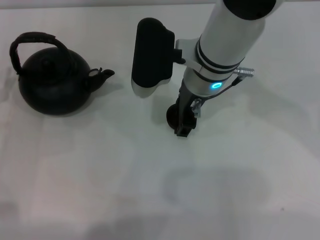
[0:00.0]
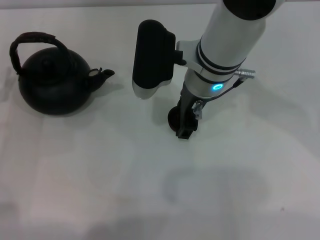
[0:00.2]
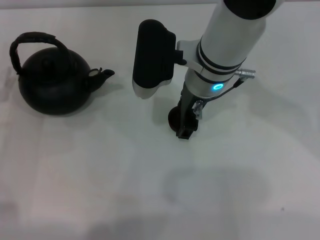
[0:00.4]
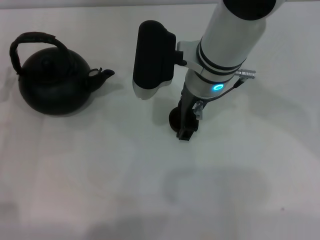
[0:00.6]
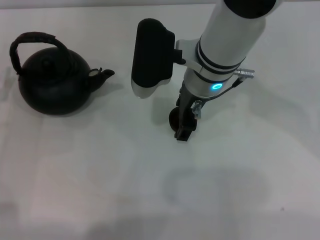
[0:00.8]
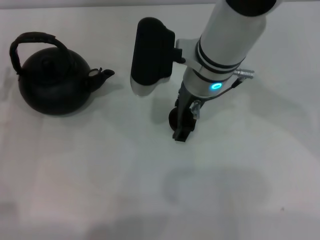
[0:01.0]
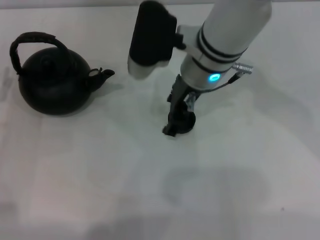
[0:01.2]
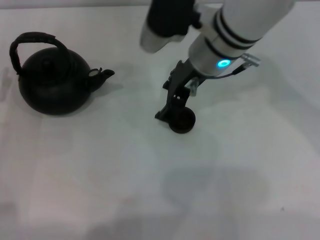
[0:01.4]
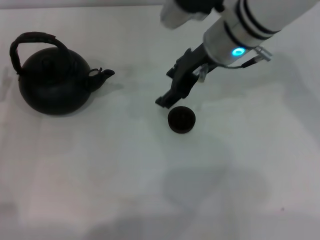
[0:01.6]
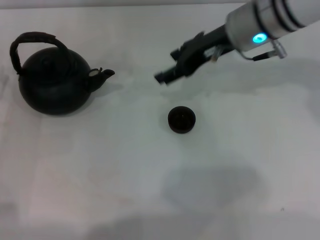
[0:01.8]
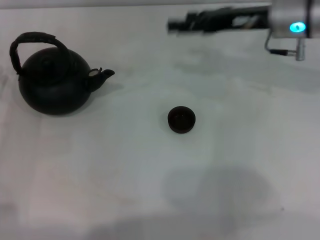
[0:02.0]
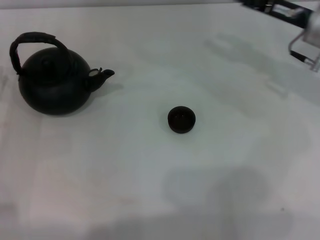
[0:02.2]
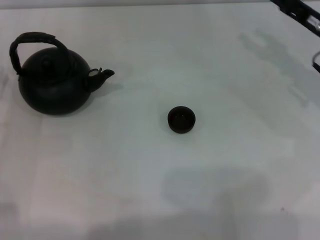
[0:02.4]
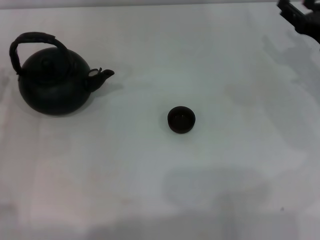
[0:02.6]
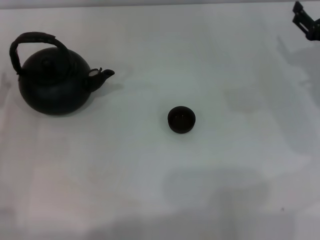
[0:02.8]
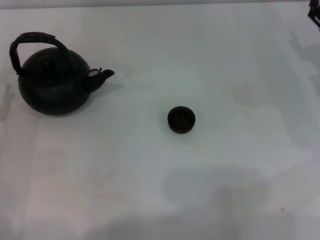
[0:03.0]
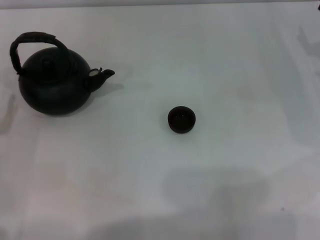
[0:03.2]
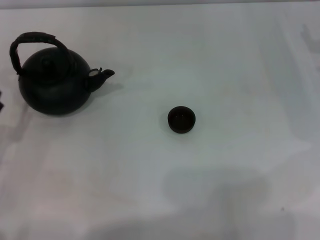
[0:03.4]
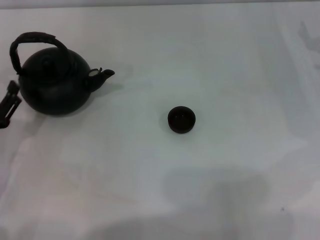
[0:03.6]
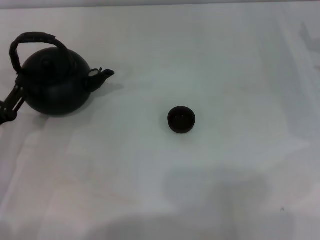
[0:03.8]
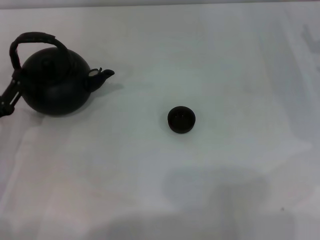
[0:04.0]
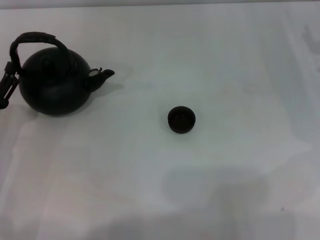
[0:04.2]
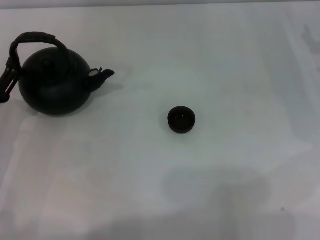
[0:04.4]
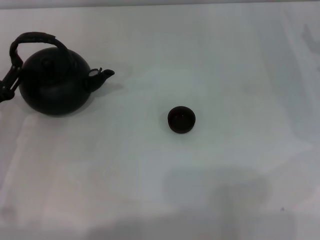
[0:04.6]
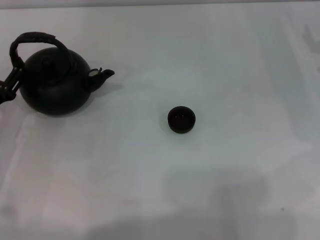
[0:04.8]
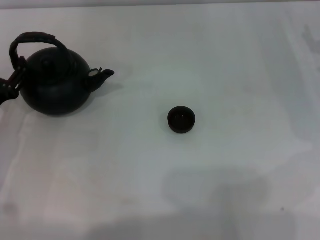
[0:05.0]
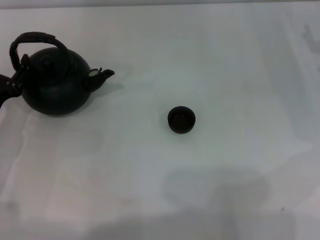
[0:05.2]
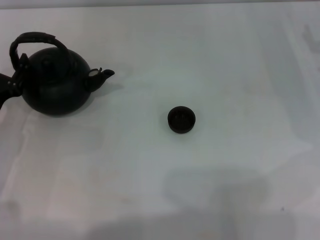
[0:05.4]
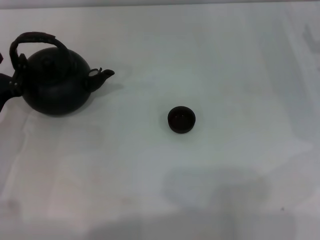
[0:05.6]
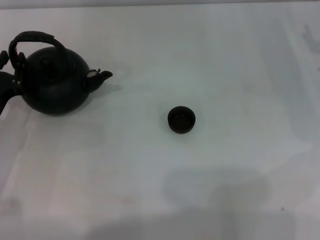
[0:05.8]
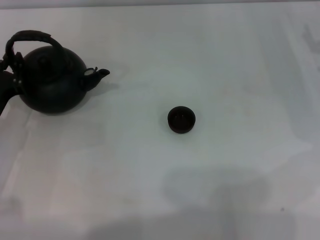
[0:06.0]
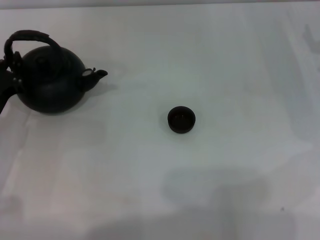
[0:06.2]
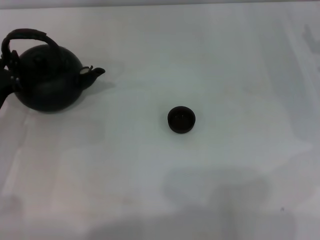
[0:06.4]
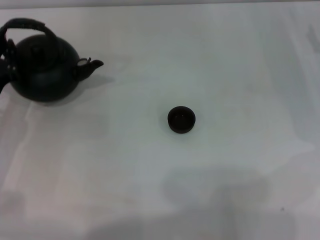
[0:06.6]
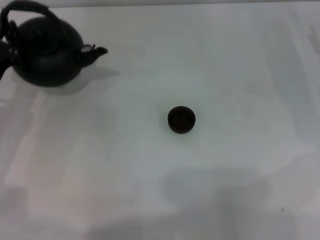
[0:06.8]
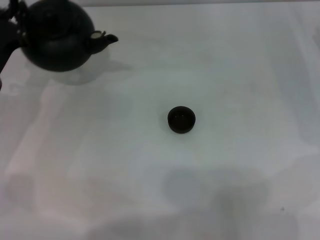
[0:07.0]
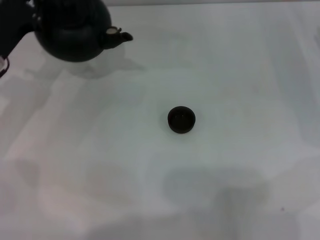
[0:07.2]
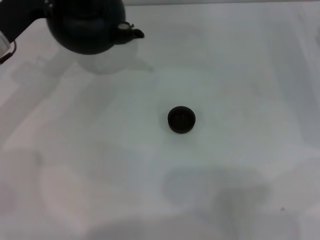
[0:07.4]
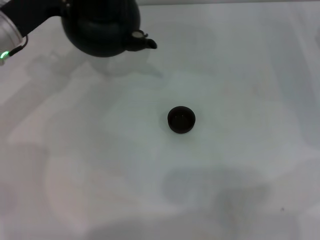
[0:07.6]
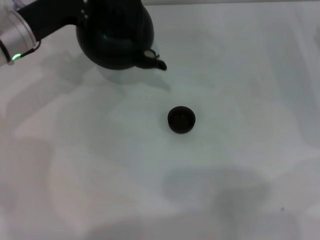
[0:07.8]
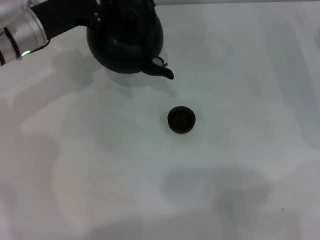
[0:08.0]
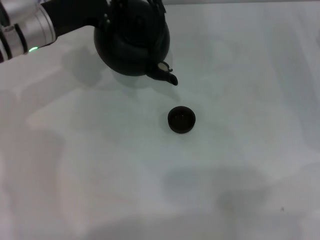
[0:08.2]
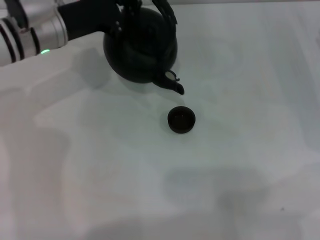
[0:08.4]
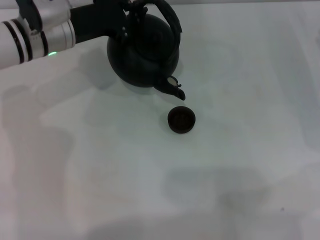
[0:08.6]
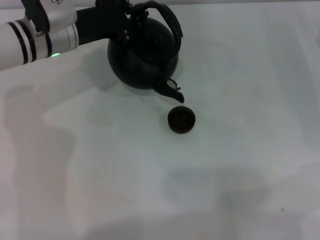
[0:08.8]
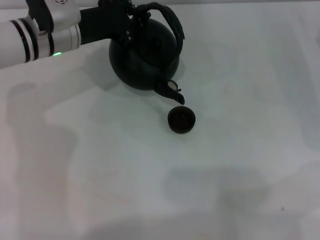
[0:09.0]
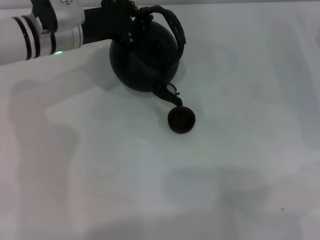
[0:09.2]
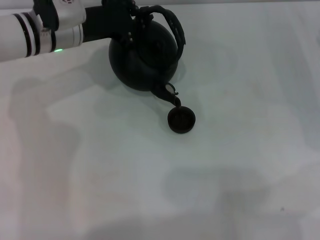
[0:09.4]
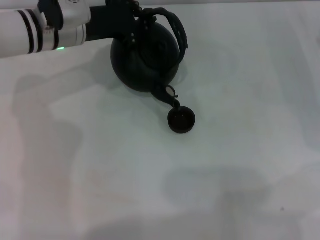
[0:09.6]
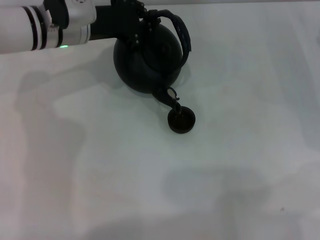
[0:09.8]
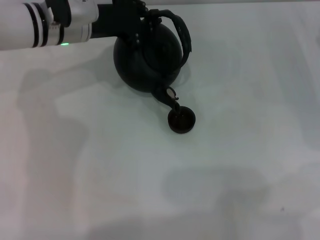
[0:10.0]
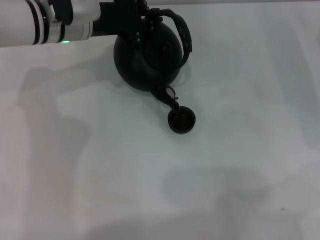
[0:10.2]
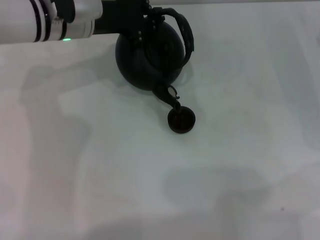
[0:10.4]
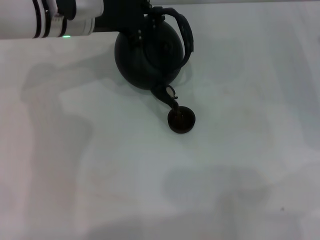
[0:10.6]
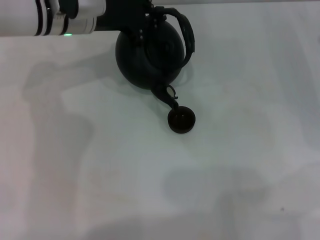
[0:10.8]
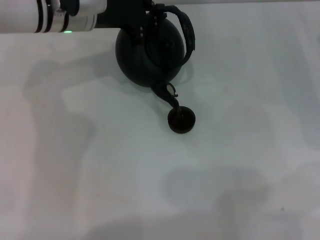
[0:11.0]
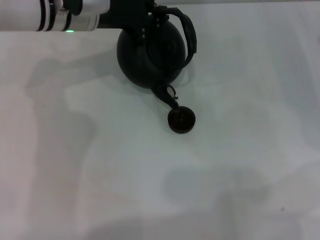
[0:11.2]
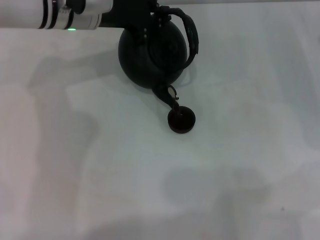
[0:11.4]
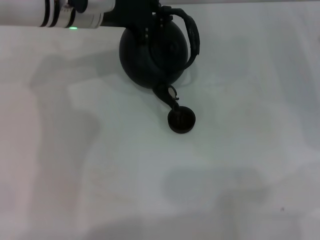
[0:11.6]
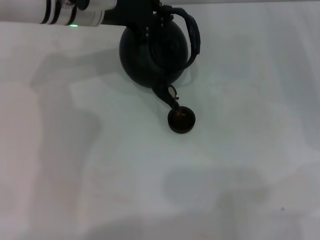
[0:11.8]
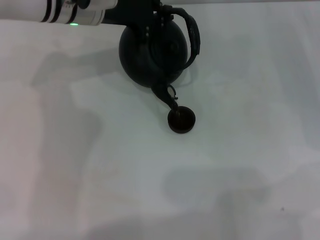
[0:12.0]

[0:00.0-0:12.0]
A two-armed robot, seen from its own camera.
Task of the whole recording: Grasp the handle of the teapot with one hand and pour tea into the teacup.
Step, 0.0 to 1.6 s: Place the teacup in the center of view with the right gripper.
Step, 1.8 to 6.8 s: Pick up the teapot with the left gripper.
0.0 to 1.6 s: The right gripper shifts by about 5 cm, and opens its fingers.
1.6 to 3.0 s: The right gripper goes some 25 cm to the right and downward.
3.0 to 4.4 s: There are only small adjustments of the grippers.
4.4 to 6.0 s: The left gripper closes up.
6.0 to 7.6 s: The left gripper travels forward and upward by about 15 cm, and closes.
7.6 to 9.0 s: The left gripper is displaced to the right by approximately 5 cm.
9.0 to 10.4 s: The grippers stay close to where they were, moving slightly.
10.4 to 12.0 s: There are only small adjustments of the grippers.

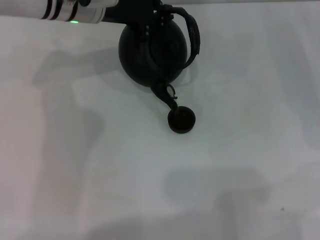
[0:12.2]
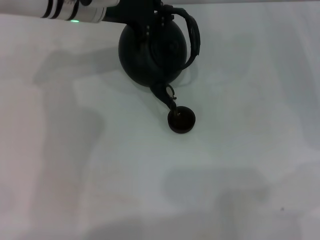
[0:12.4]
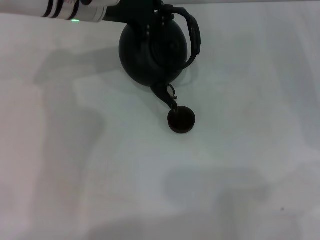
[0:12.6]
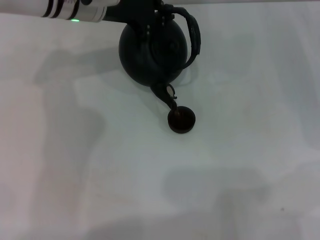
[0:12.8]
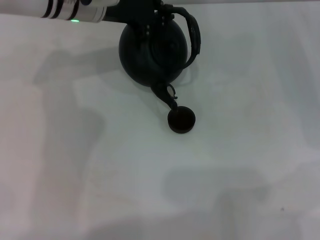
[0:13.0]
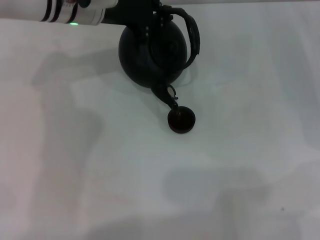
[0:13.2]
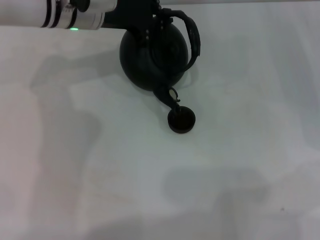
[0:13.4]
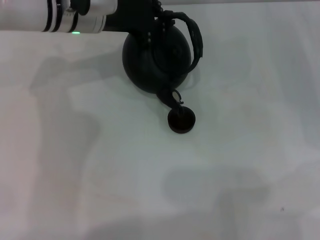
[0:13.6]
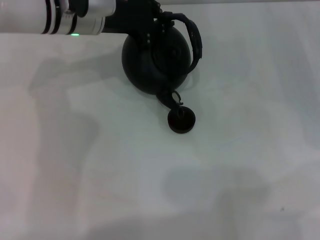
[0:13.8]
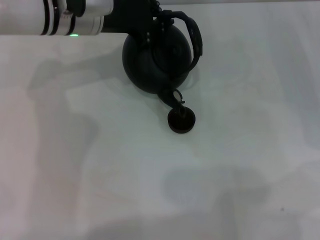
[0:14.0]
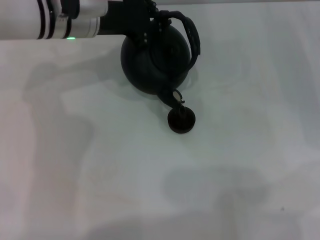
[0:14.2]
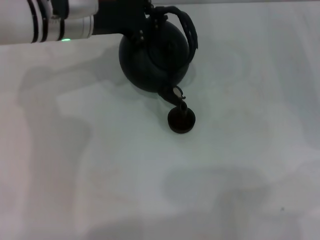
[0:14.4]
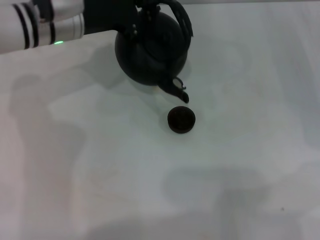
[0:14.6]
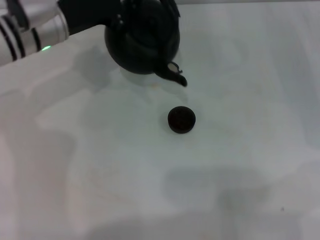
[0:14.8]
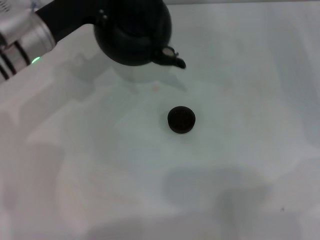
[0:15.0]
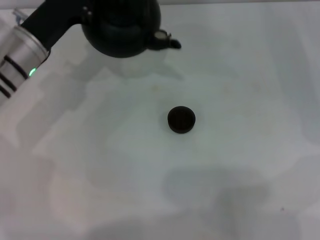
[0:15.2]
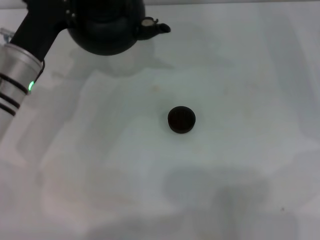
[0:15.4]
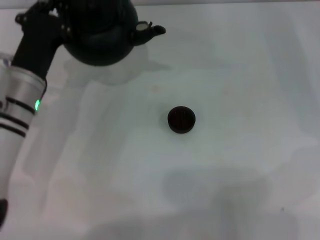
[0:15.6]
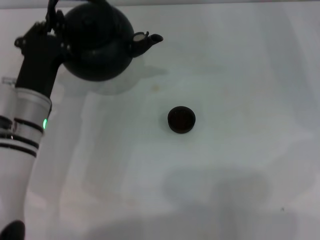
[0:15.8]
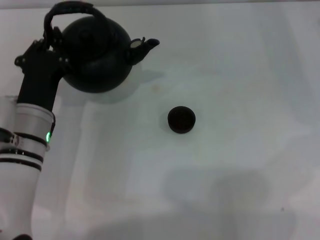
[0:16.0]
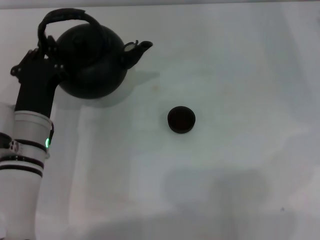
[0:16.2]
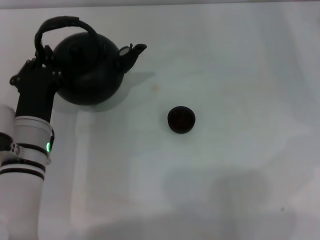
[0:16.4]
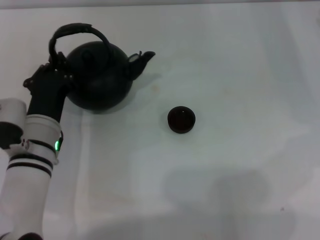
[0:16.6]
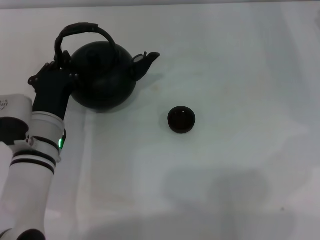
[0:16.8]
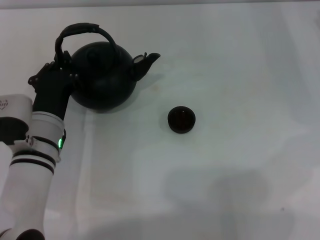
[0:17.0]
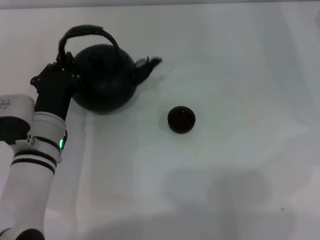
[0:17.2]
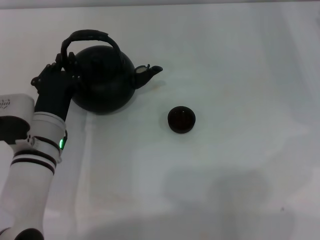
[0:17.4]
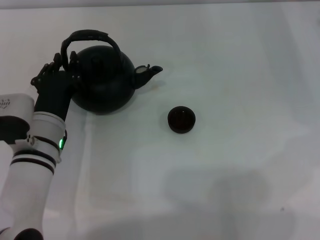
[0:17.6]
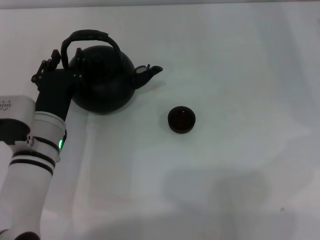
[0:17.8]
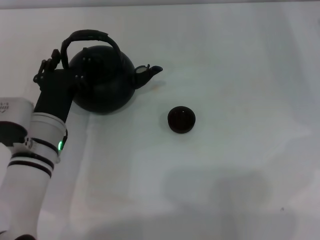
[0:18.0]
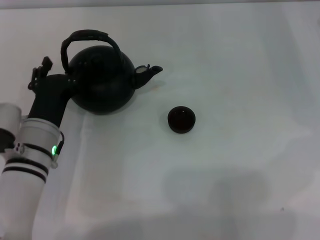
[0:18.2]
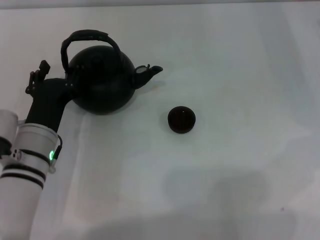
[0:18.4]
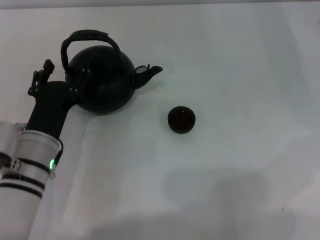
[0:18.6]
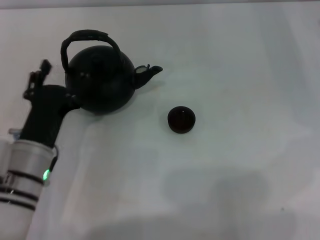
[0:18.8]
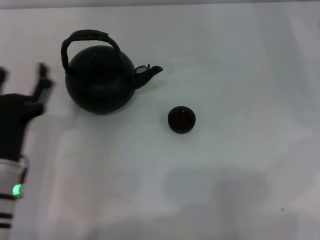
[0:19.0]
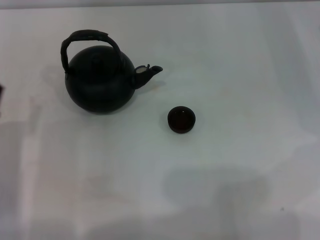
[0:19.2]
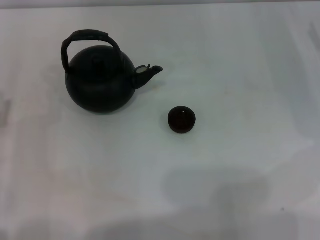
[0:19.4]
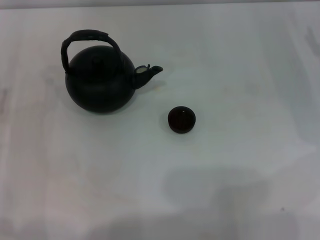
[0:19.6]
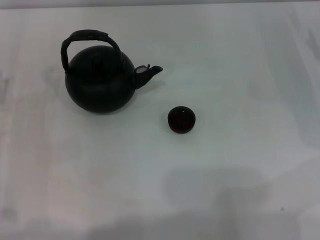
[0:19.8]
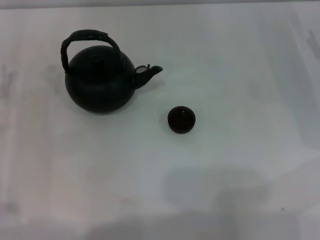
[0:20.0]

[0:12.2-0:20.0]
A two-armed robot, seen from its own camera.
Task of the whole recording: Grasp the handle of the teapot with one hand and pour tea into the teacup.
Step, 12.2 to 14.8 s: Pour tea into the teacup with the left gripper.
Step, 15.0 to 18.8 s: Put down the teapot with the left gripper.
12.2 to 13.8 s: There are only small adjustments of the grippers.
13.8 to 15.4 s: The left gripper goes approximately 15 cm backward, to the left and downward.
15.4 to 16.8 s: The left gripper moves backward, approximately 10 cm.
16.8 to 18.4 s: The left gripper opens its fingers.
18.4 to 20.0 s: The left gripper is displaced to the left by approximately 15 cm.

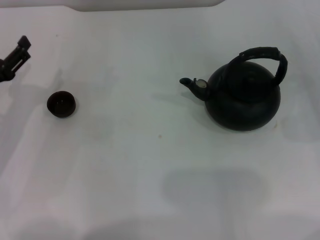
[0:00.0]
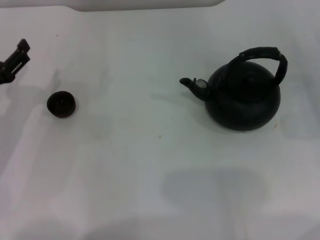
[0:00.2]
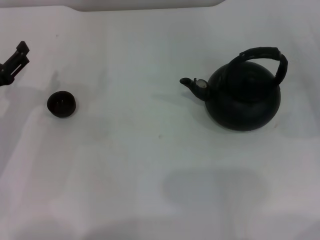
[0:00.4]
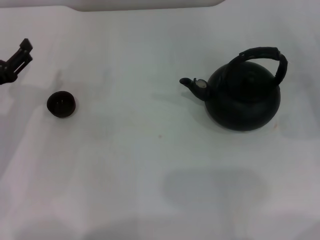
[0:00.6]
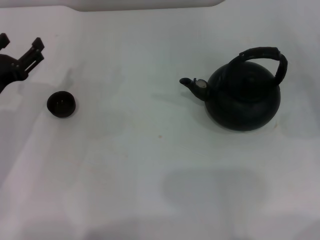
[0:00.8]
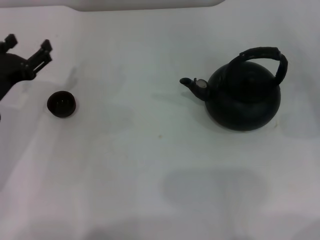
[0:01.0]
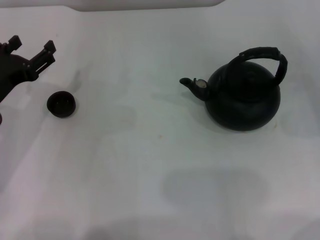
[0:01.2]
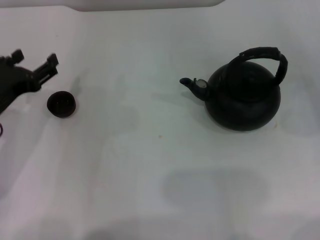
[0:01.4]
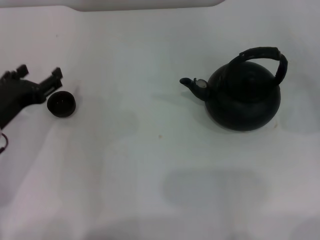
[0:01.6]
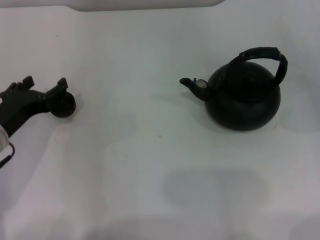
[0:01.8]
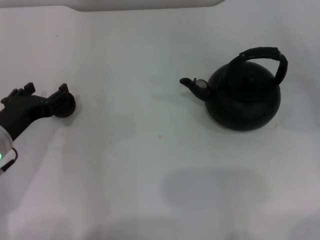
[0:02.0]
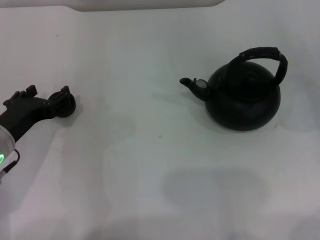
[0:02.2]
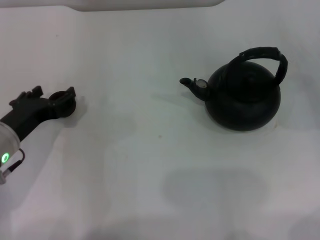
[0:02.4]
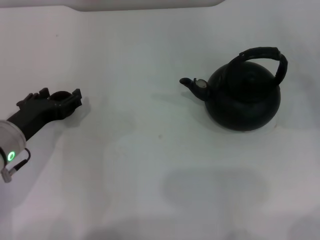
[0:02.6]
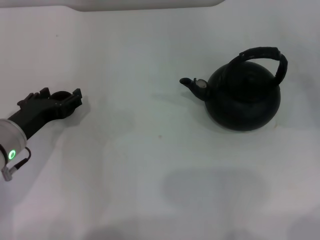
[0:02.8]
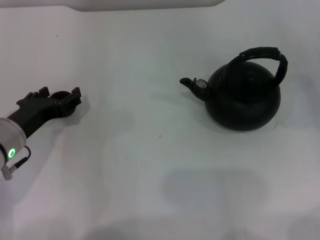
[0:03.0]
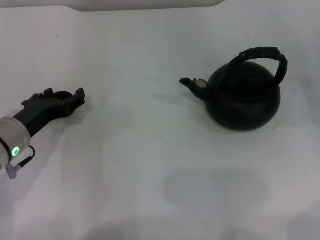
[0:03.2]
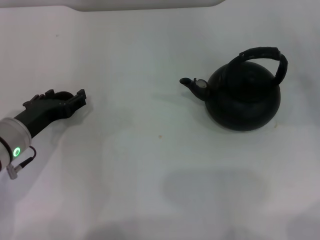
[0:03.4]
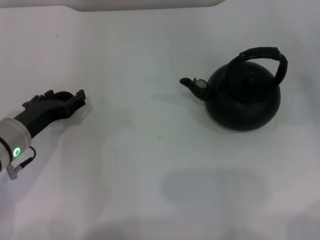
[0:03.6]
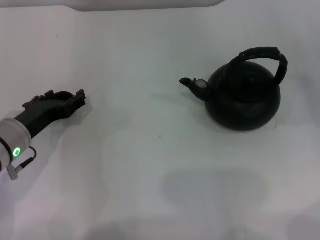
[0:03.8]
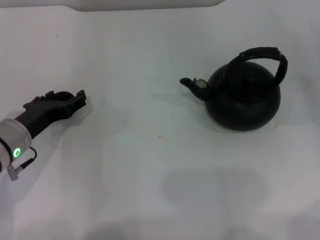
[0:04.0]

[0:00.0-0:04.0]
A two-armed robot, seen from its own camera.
Task of the whole recording: Grasp the handle of the teapot with one hand and pour tea into the teacup.
0.0 to 1.4 s: The grippers move only a little.
1.4 to 2.6 s: The grippers stay close to where they were, moving slightly.
2.6 to 4.0 s: Both grippers stay put.
